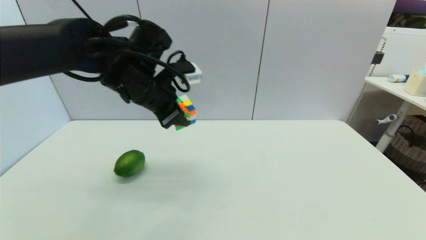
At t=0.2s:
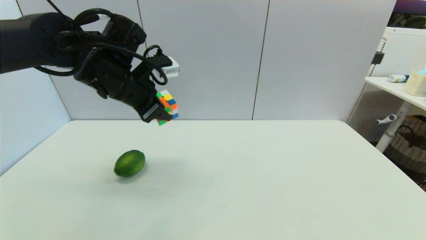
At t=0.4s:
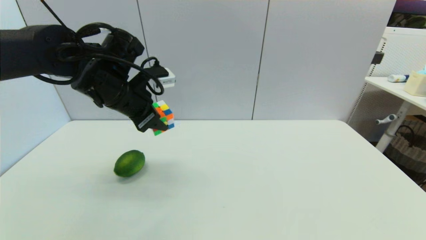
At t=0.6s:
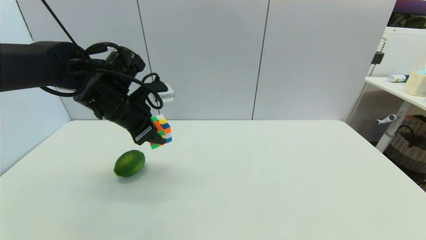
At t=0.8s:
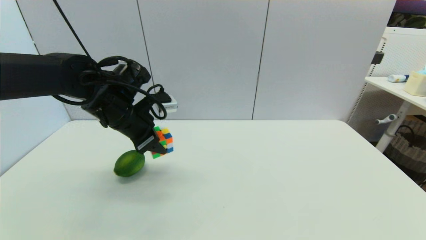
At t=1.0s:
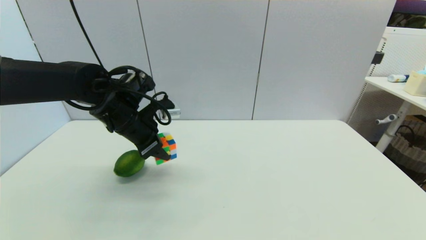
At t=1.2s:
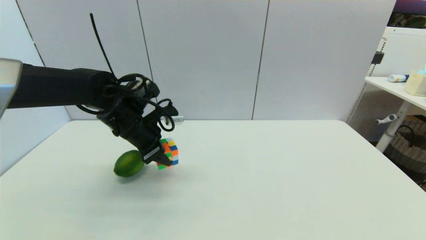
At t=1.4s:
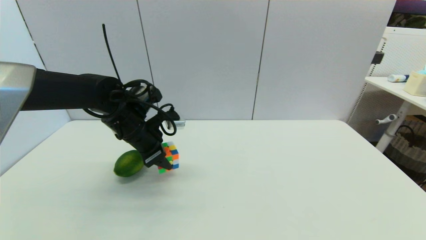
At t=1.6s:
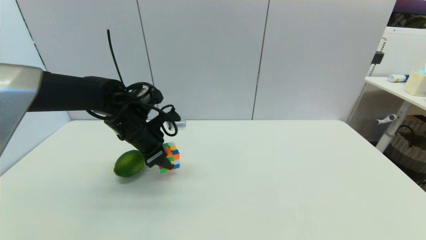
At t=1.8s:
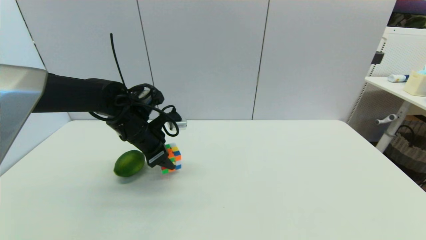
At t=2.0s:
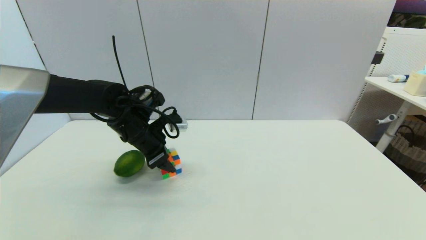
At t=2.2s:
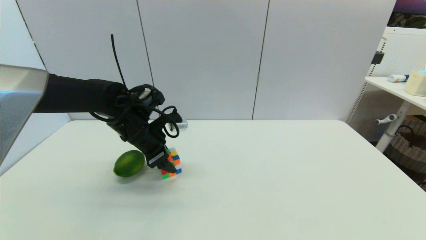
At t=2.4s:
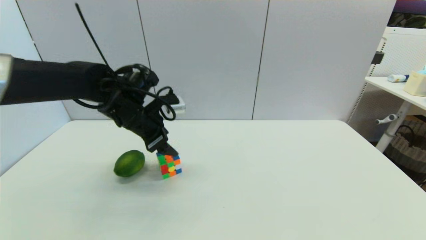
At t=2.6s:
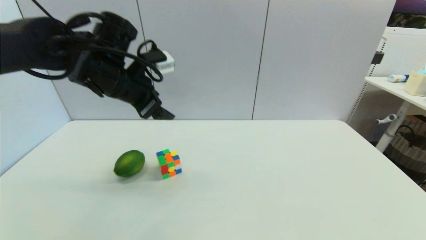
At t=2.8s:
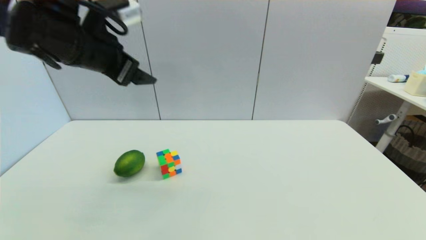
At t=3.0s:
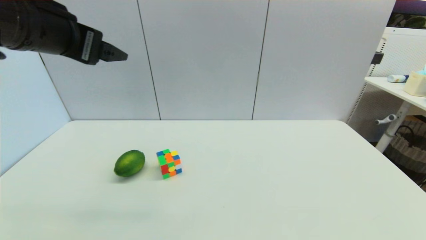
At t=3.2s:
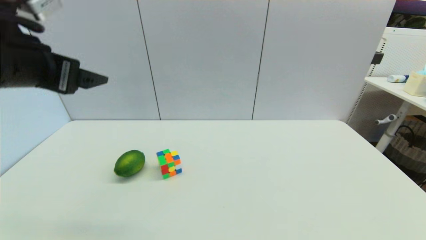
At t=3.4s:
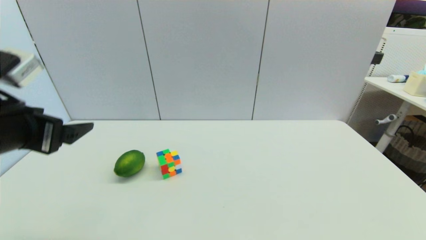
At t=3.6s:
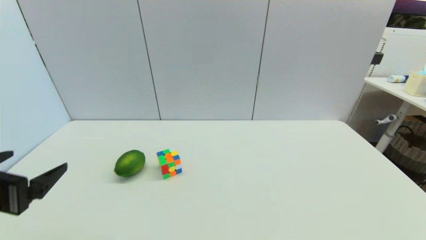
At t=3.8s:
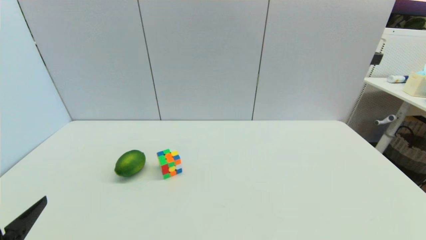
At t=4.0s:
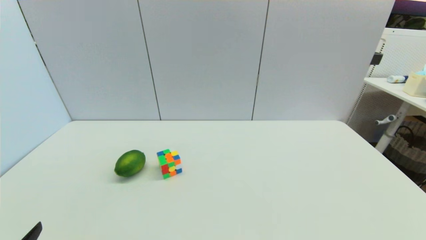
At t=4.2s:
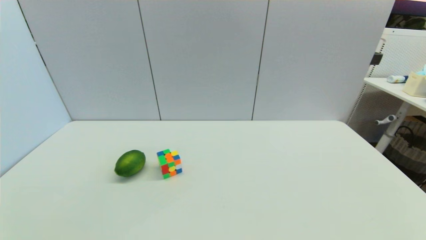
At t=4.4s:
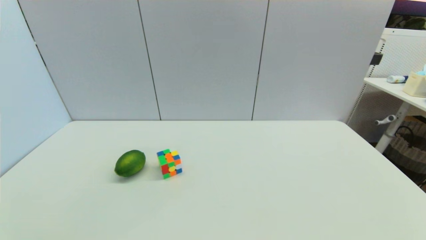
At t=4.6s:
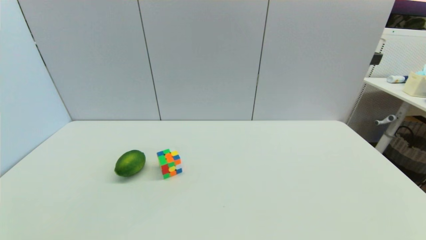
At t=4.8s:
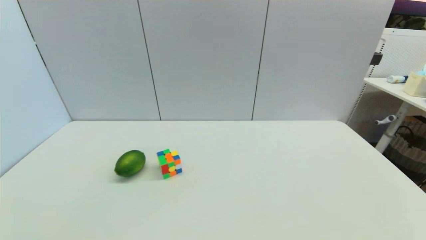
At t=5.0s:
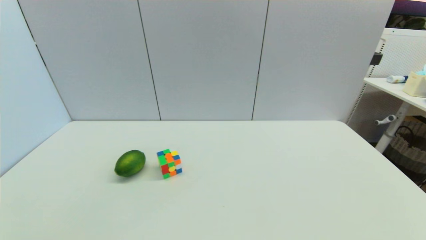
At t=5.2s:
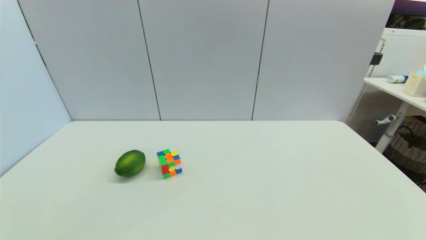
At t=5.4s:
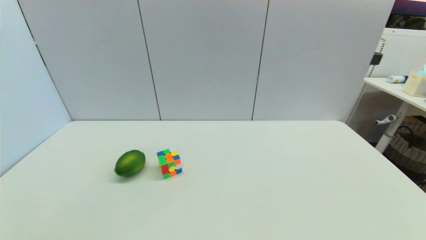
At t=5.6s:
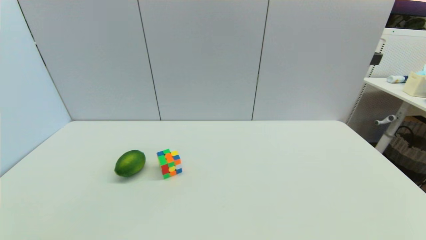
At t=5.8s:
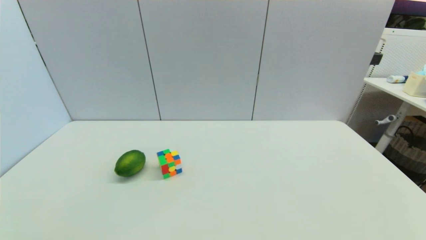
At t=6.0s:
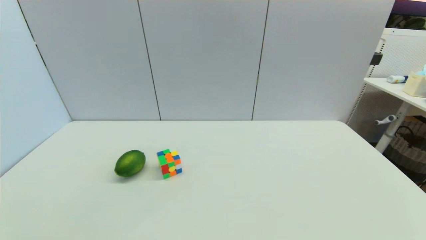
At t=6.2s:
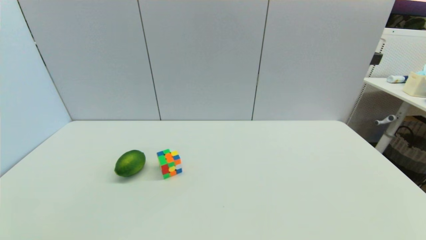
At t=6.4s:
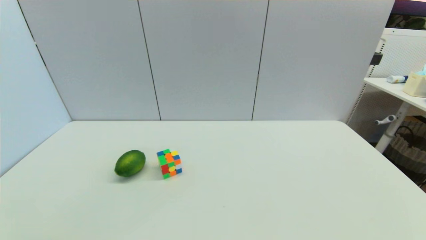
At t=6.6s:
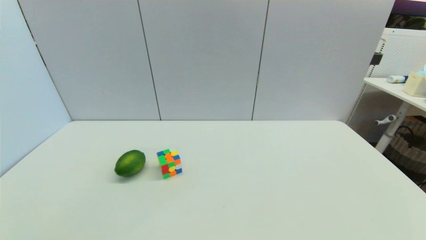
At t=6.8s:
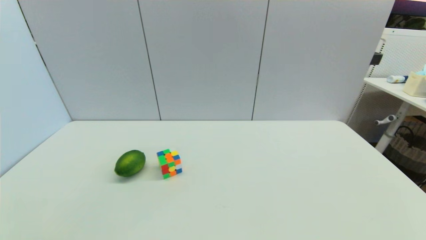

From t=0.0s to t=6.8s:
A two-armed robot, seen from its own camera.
Step, from t=0.0s to t=2.4s: Place the magic cube on the table with left gripper.
From t=0.0s to t=1.4s: The left gripper heads downward, covering some 10 cm.
From t=1.4s to t=2.8s: The left gripper heads upward, covering approximately 20 cm, and opens.
From t=2.8s to t=4.0s: The left gripper goes some 35 cm backward, downward and to the left.
